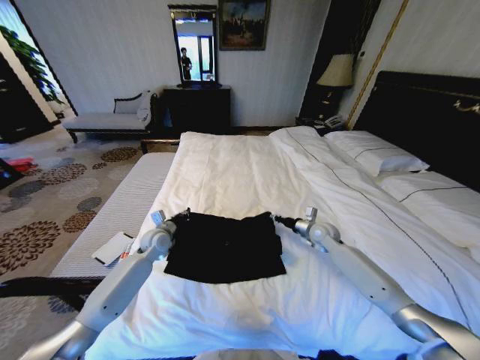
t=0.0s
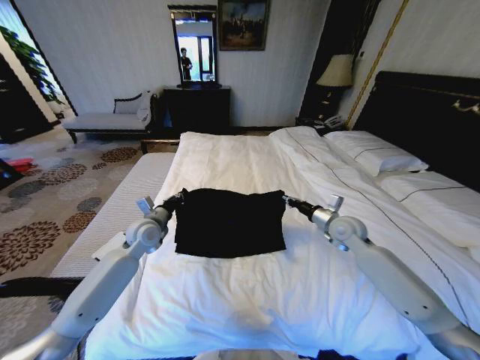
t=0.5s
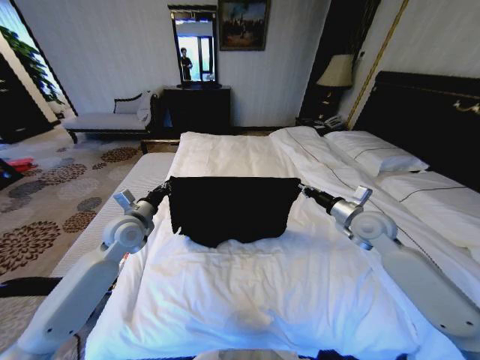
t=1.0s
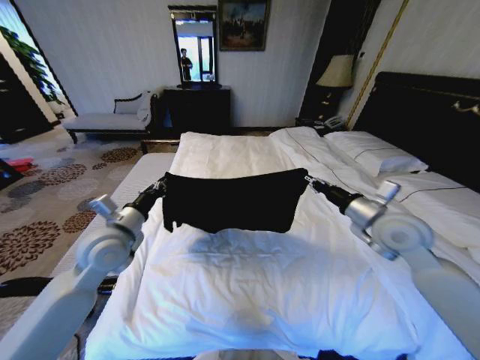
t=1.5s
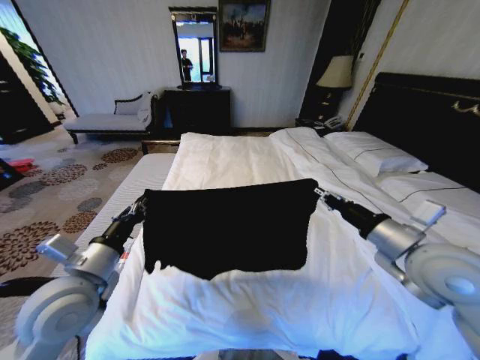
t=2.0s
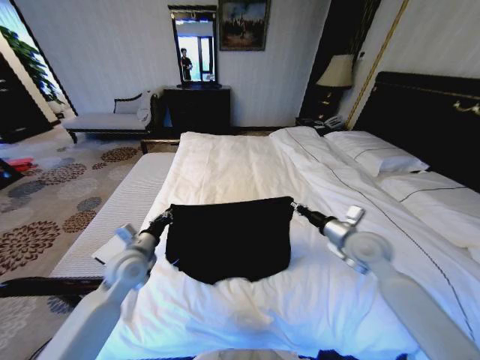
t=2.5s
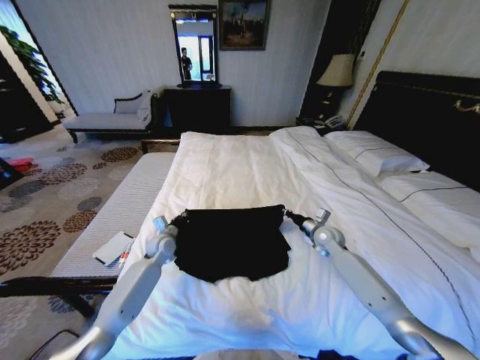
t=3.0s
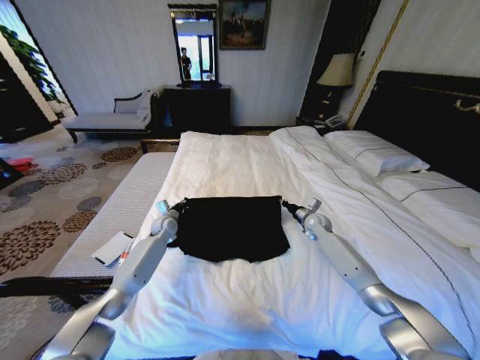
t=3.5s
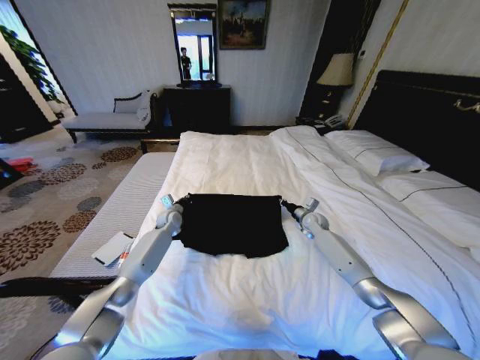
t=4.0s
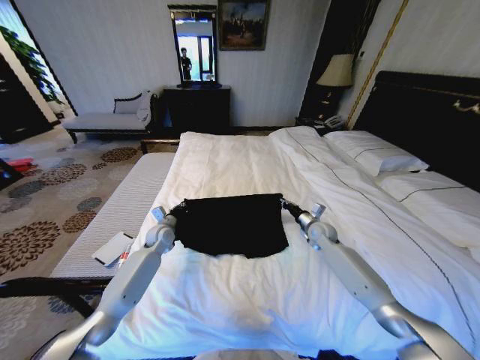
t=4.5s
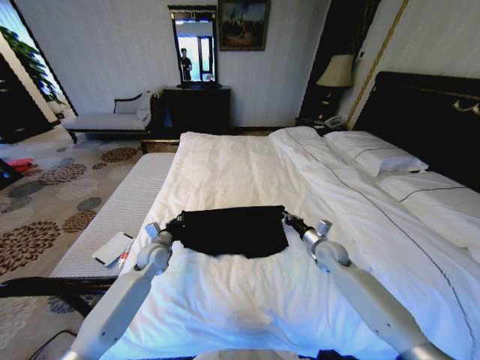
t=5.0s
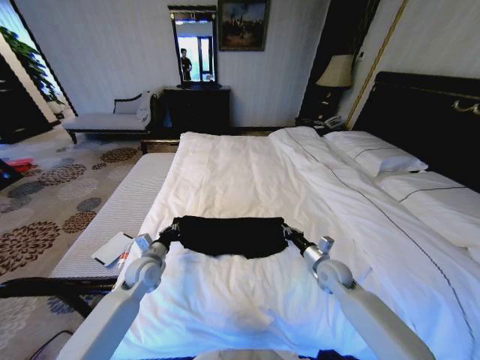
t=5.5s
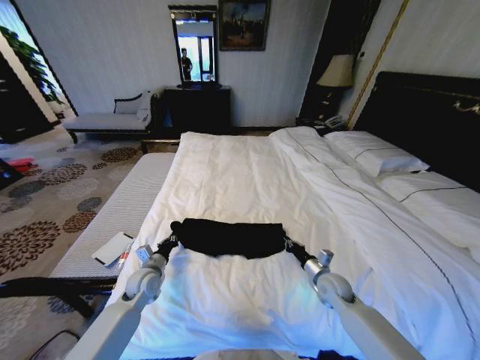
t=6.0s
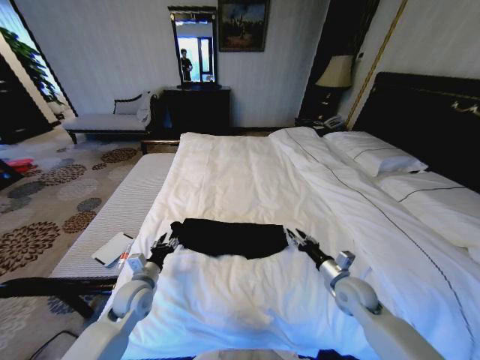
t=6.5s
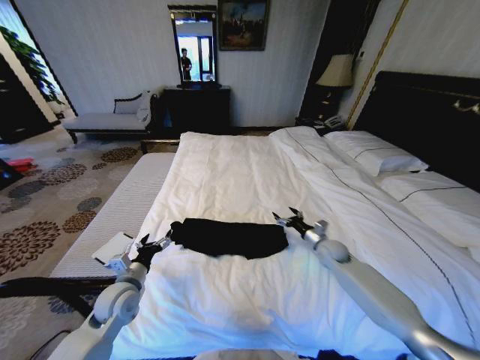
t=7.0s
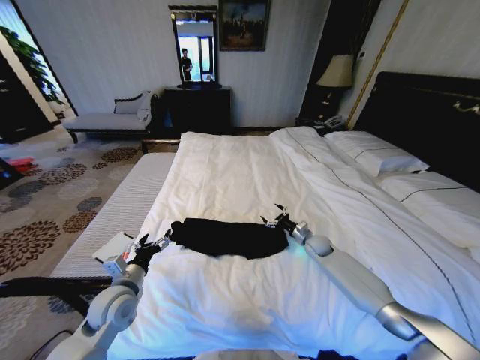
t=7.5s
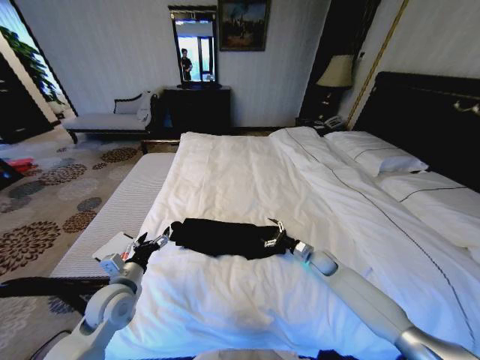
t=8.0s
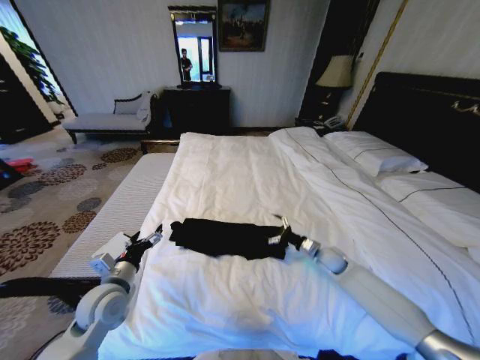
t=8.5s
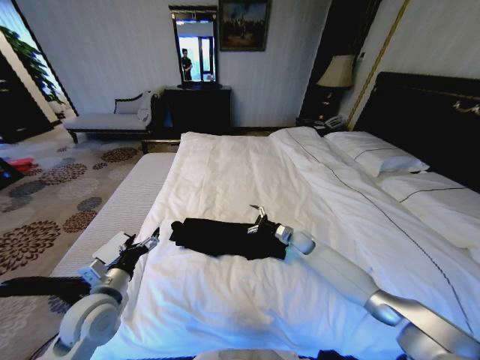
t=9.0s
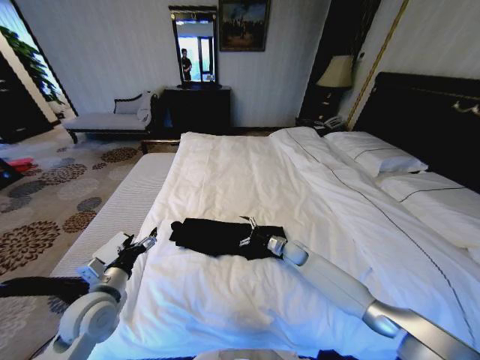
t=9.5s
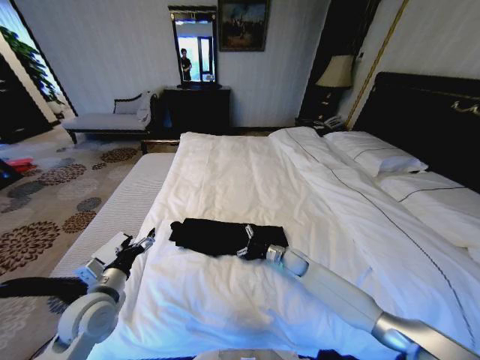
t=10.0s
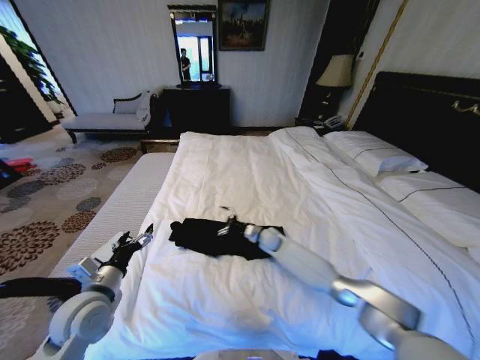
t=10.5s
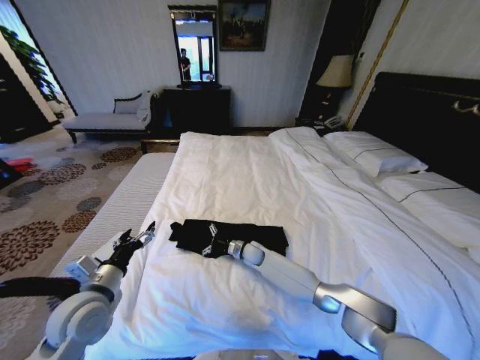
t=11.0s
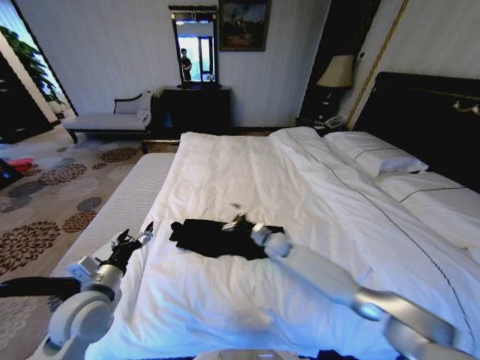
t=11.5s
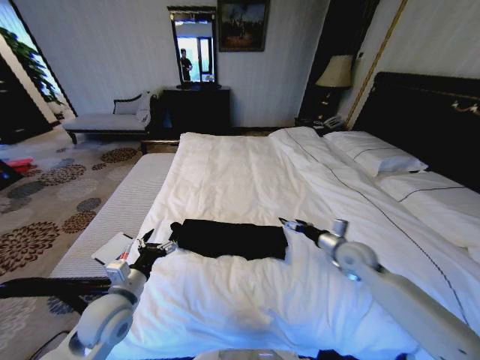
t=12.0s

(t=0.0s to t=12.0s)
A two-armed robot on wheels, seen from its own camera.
Task of the whole recording: Fold the clothes on the bed.
t=0.0s - t=2.0s: The two grippers go some 30 cm backward and upward.
t=2.0s - t=4.0s: The grippers both shift forward and downward by roughly 40 cm.
t=4.0s - t=6.0s: The grippers both shift backward by roughly 20 cm.
t=6.0s - t=8.0s: The left gripper moves upward and backward, approximately 10 cm, and opens its fingers, while the right gripper goes forward and backward, approximately 20 cm each way, reversing 2 times, and opens up.
t=8.0s - t=10.0s: The right gripper travels to the left by approximately 10 cm.
t=10.0s - t=12.0s: The right gripper shifts roughly 20 cm upward, to the right and backward.

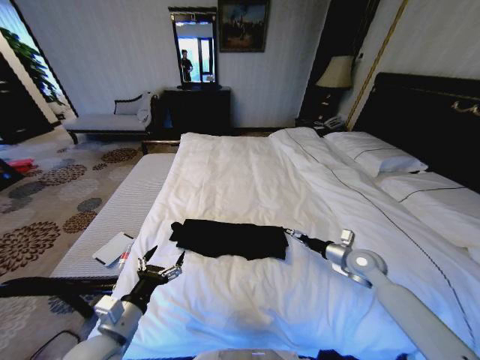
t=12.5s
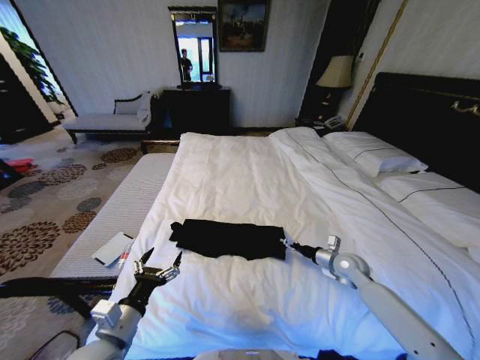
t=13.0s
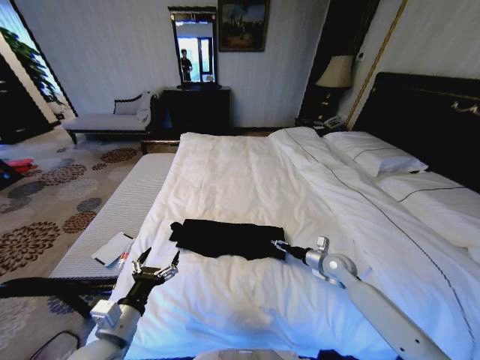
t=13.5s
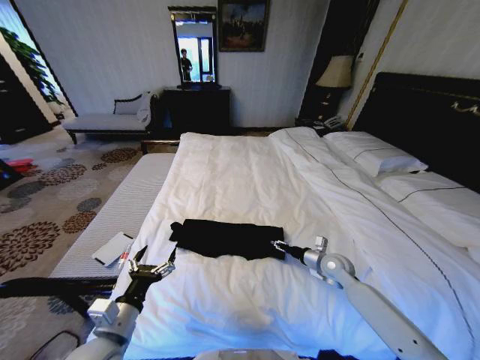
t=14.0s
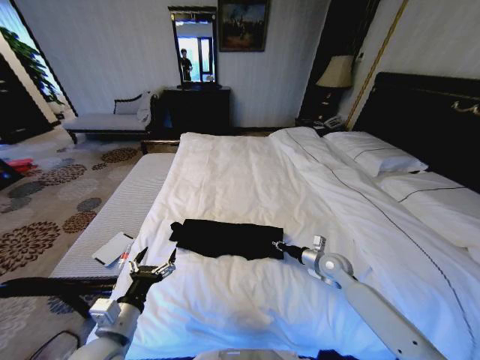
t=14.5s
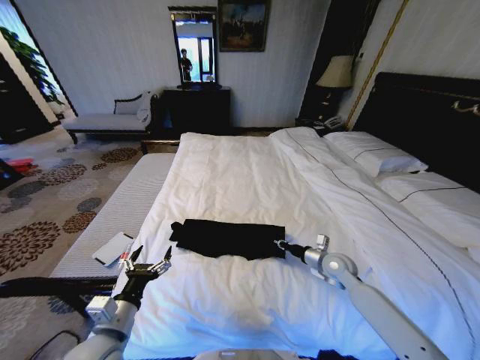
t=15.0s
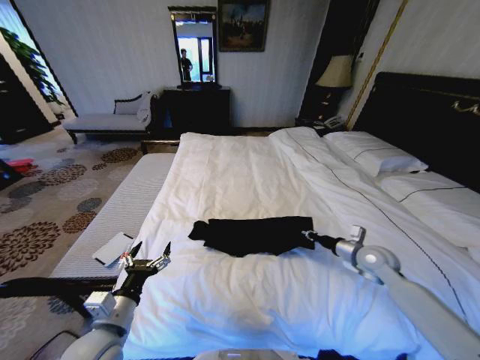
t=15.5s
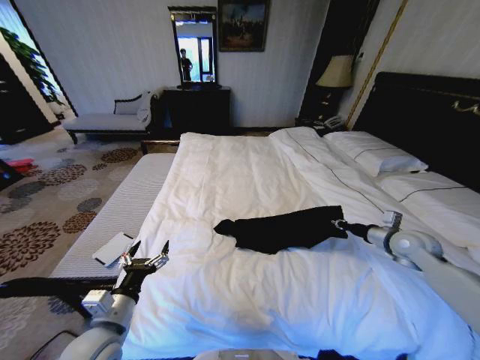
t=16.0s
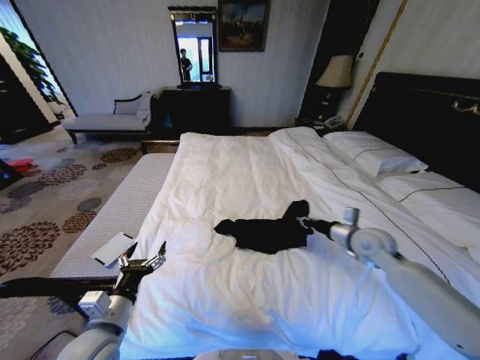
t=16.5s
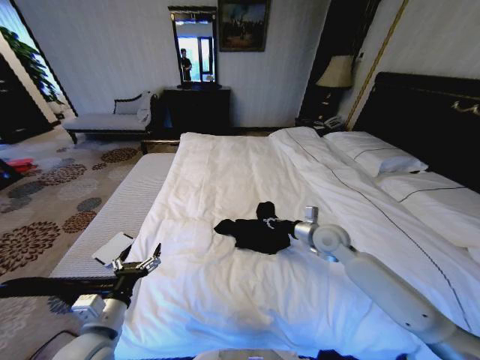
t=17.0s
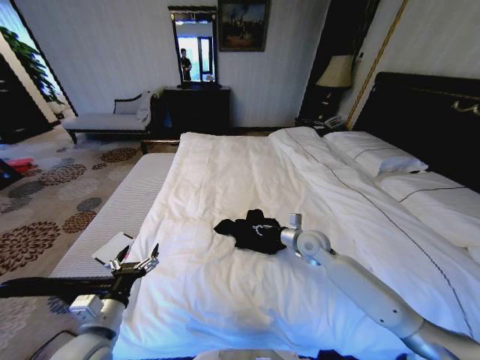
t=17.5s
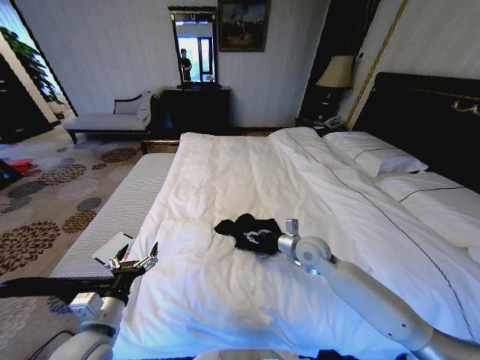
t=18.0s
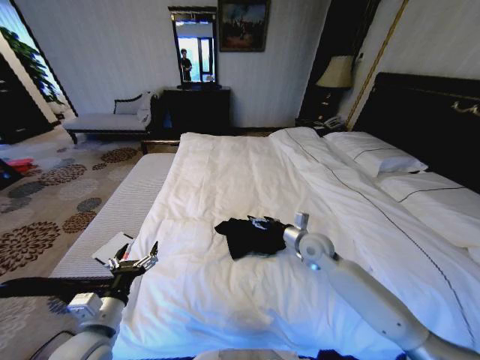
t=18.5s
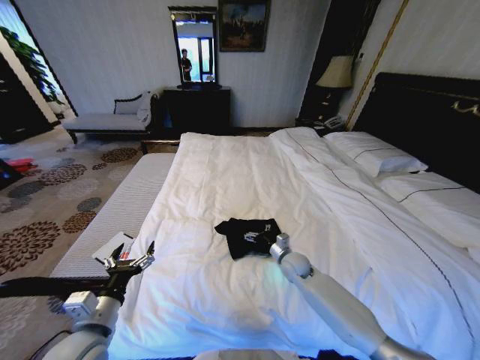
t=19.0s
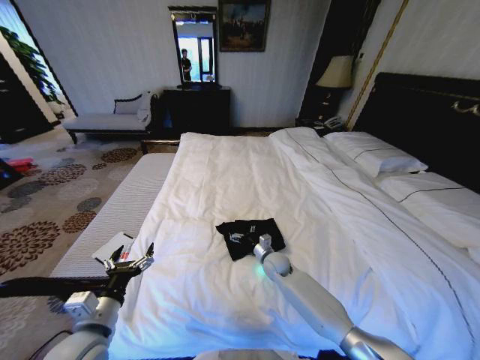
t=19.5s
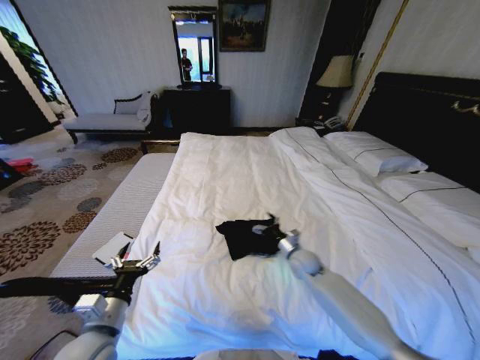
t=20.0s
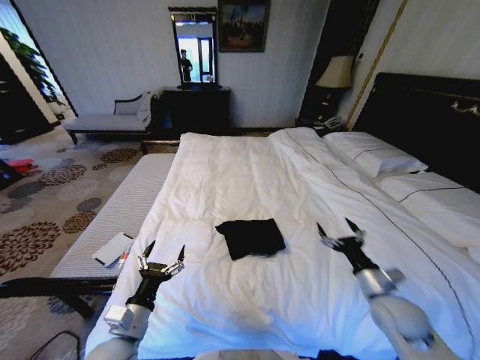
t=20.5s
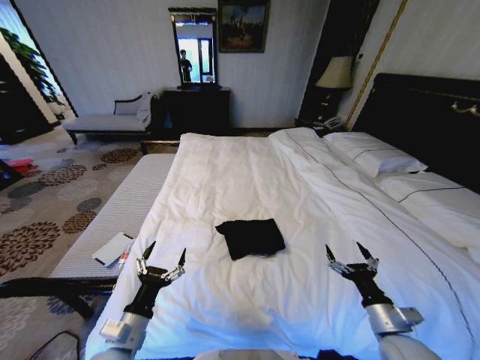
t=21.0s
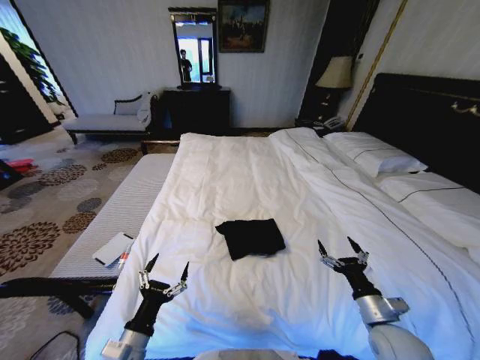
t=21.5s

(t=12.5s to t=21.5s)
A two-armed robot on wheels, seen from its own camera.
Task of the whole recording: Fold the clothes on the bed.
t=12.5s - t=14.5s: The right gripper travels to the left and downward by about 10 cm, and closes up.
t=14.5s - t=17.0s: The right gripper heads upward, covering roughly 10 cm, and travels to the right and back again, some 15 cm each way.
t=17.0s - t=19.5s: The right gripper heads downward and to the left, covering roughly 20 cm, and opens.
t=19.5s - t=21.5s: The right gripper moves backward and to the right, some 30 cm, while the left gripper is displaced downward and to the right by about 10 cm.

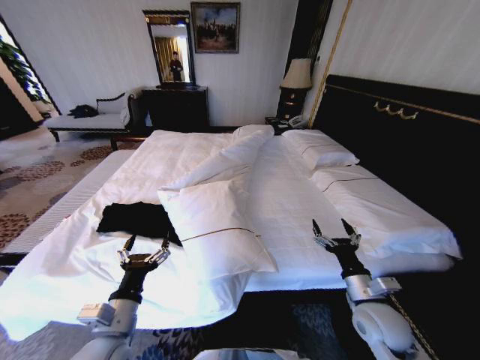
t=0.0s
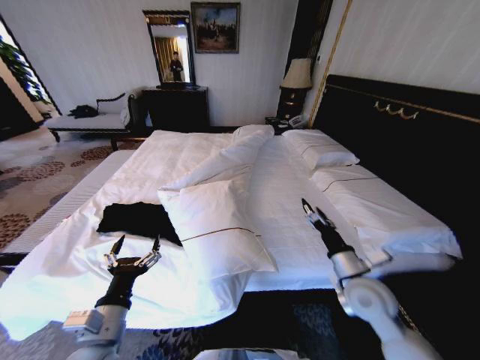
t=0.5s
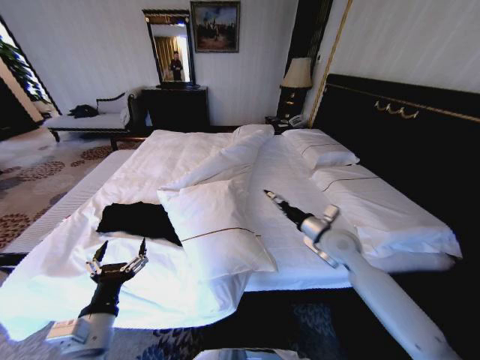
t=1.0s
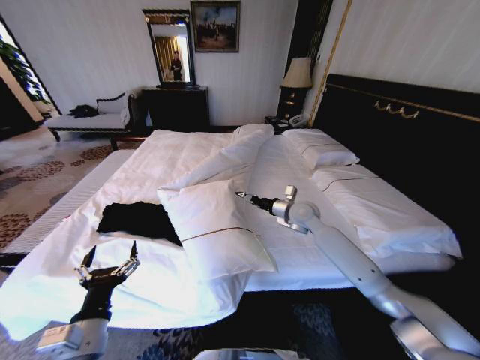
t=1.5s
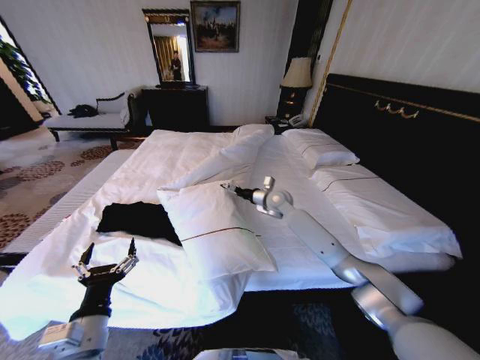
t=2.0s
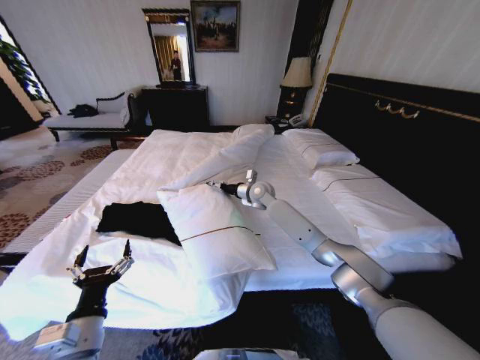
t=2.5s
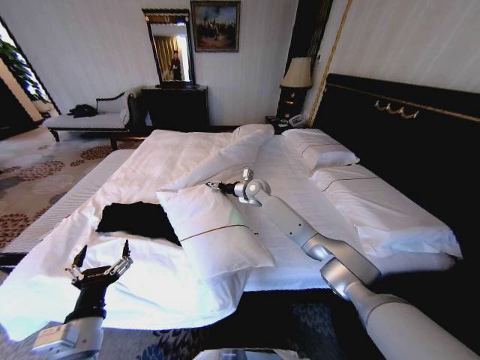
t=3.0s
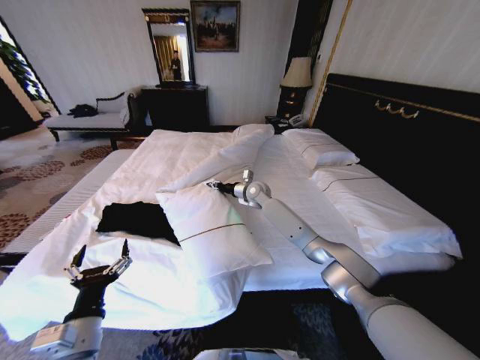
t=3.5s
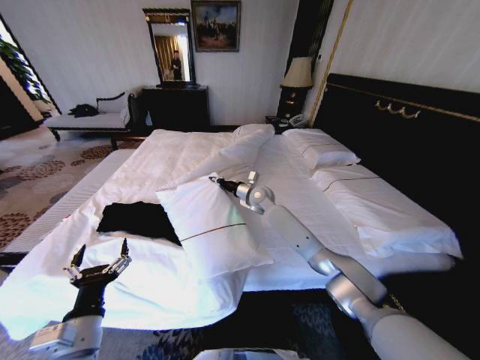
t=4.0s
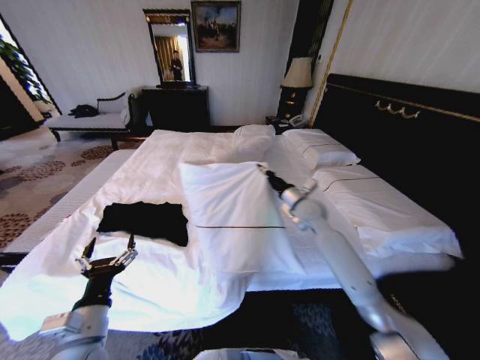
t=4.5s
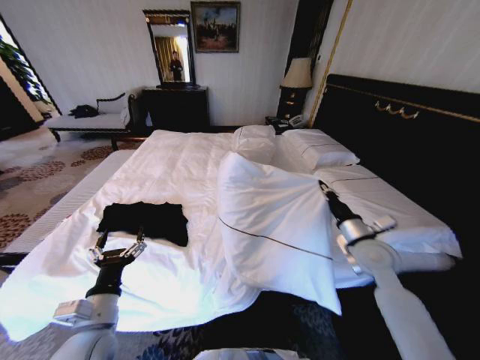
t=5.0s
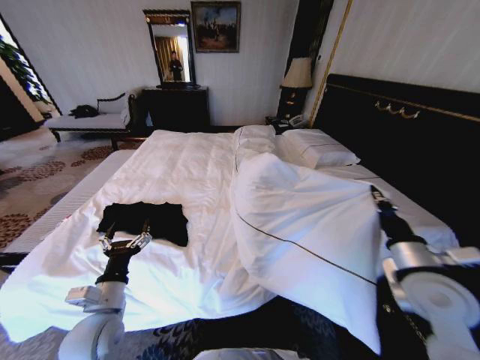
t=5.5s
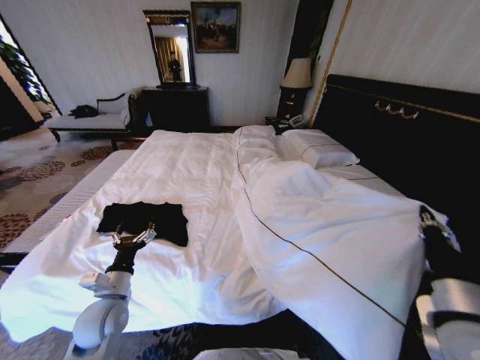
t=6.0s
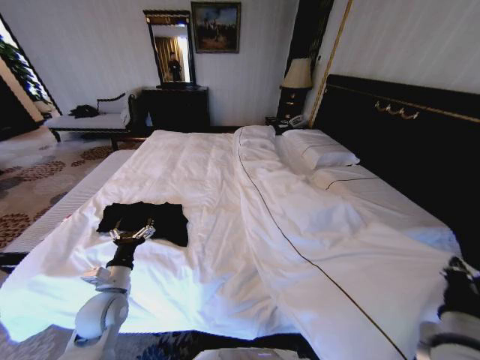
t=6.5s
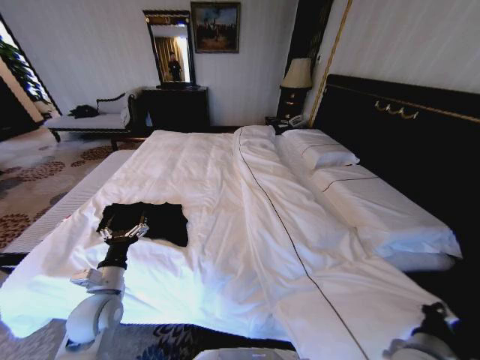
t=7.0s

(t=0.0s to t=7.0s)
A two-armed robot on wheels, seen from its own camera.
Task of the whole recording: Fold the clothes on the bed.
t=0.0s - t=2.0s: The right gripper is displaced forward and to the left by roughly 40 cm.
t=2.0s - t=3.5s: The right gripper travels to the left and forward by some 10 cm, and closes.
t=3.5s - t=5.0s: The right gripper shifts some 35 cm backward and to the right.
t=5.0s - t=7.0s: The left gripper goes about 5 cm forward; the right gripper moves backward, some 20 cm.
